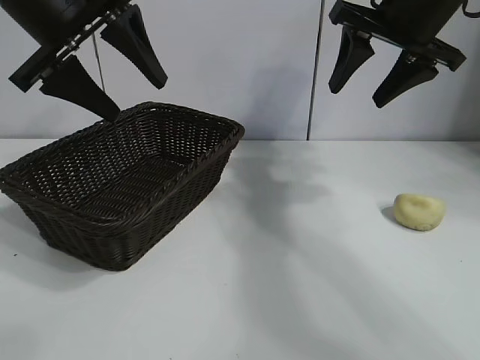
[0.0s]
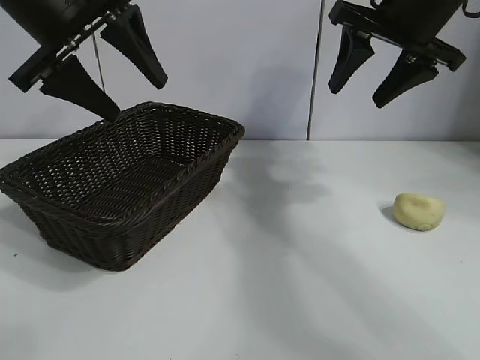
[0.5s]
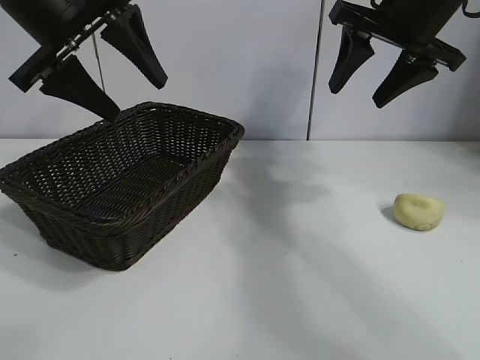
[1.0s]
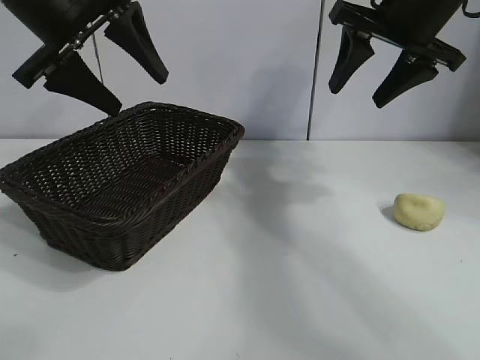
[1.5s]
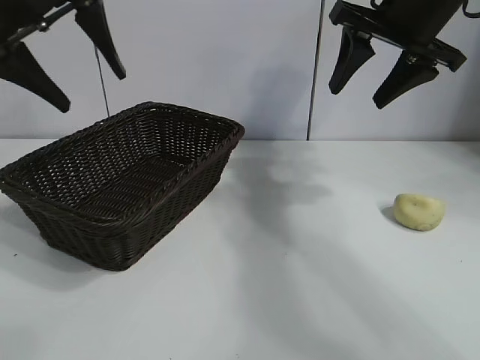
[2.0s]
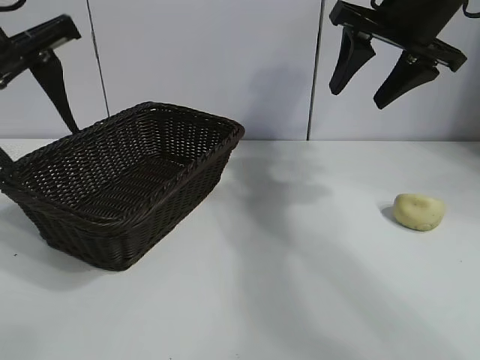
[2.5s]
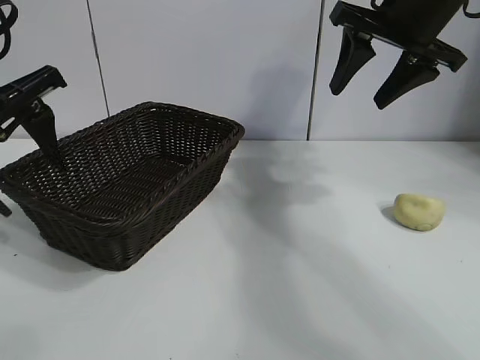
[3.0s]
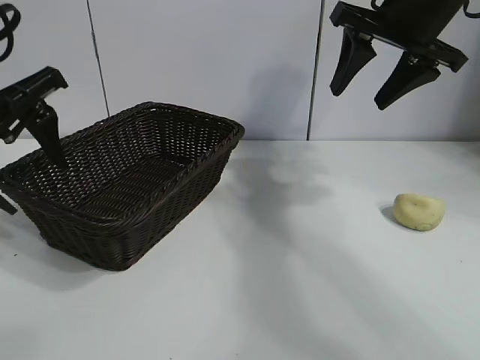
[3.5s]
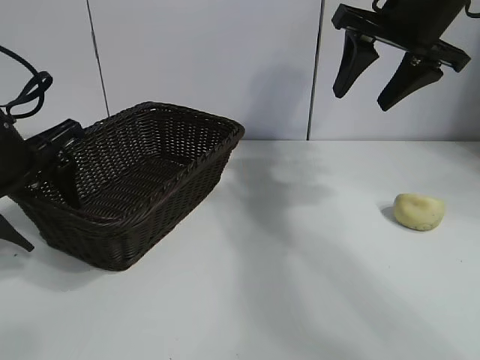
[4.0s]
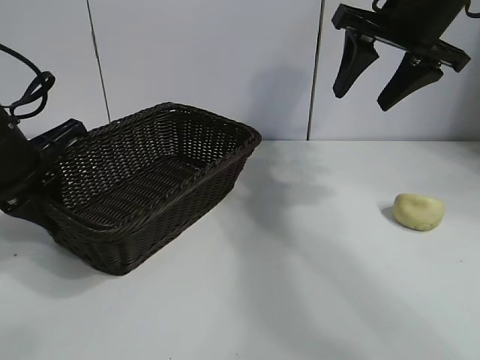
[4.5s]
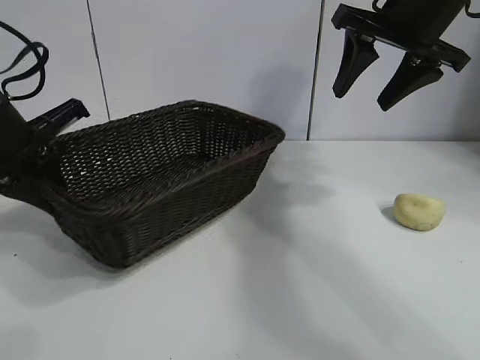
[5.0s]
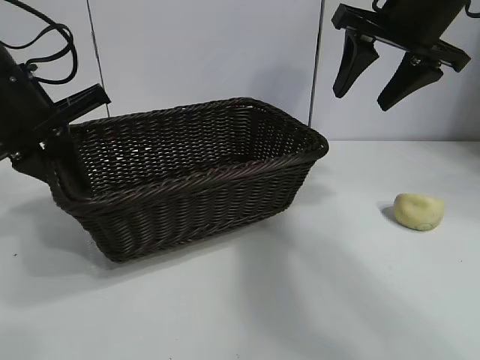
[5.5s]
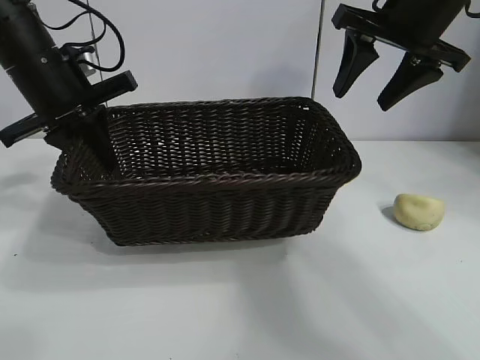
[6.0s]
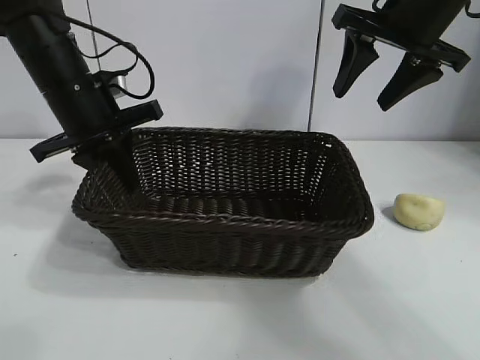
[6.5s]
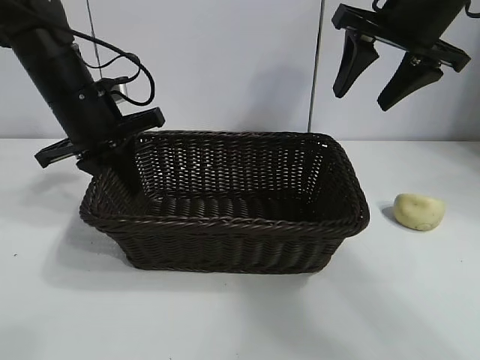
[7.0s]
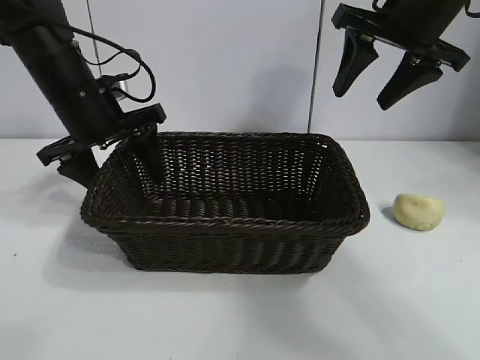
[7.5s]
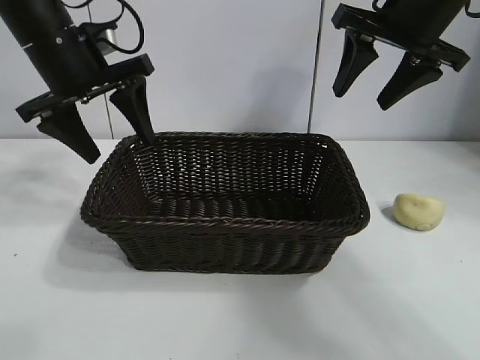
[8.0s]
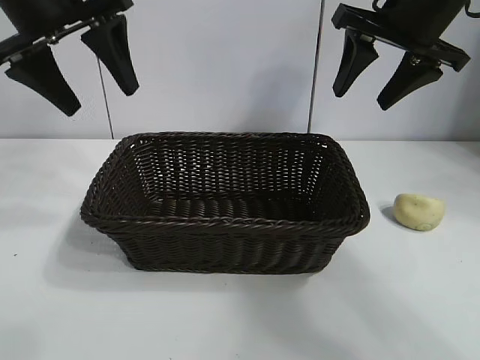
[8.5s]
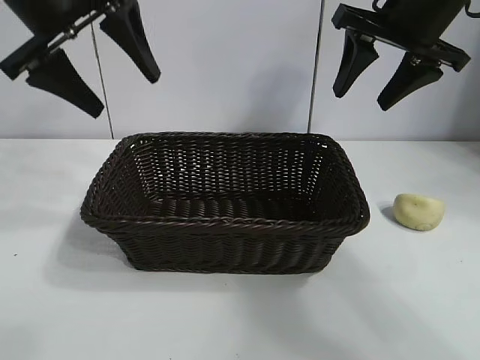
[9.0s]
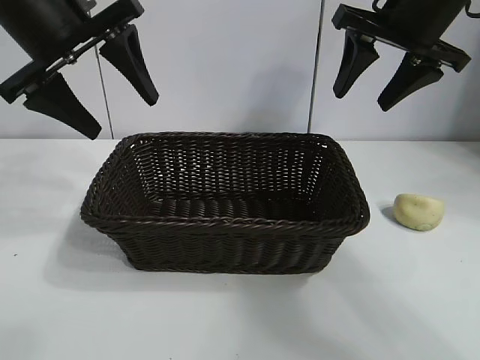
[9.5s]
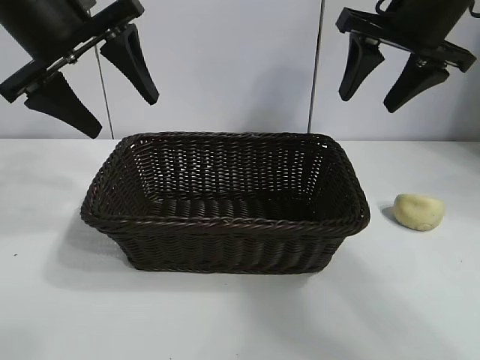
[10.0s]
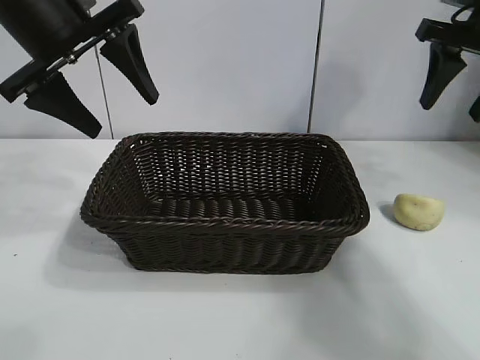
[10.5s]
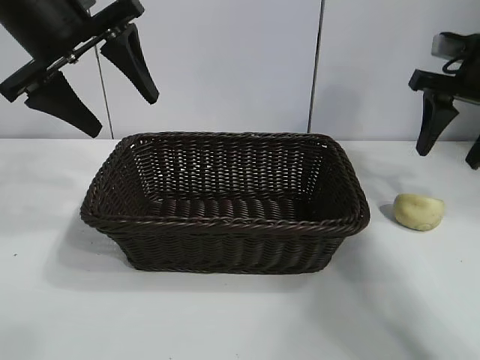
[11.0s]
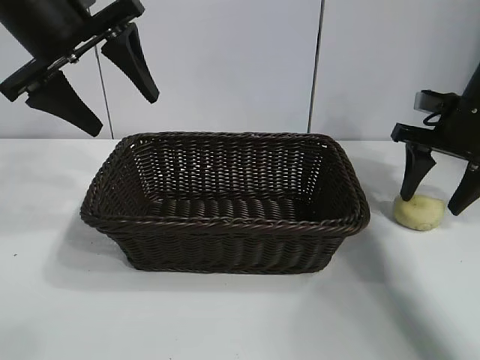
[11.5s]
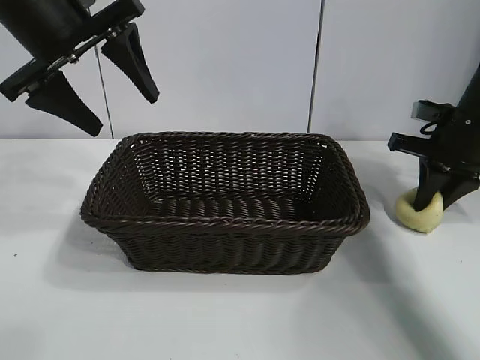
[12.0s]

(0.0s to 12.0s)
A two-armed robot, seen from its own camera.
Task of the whole recording: pick up the egg yolk pastry and put it into the basket.
Step, 1.5s - 4.0s: Grasp the basket with left gripper.
Step, 4.5s - 7.0s: Place the basket in the center of view with left gripper.

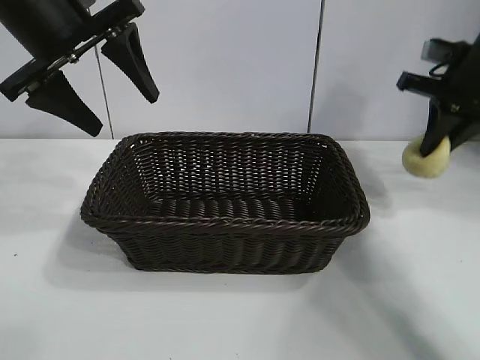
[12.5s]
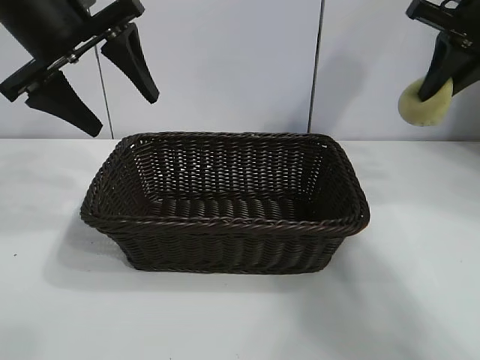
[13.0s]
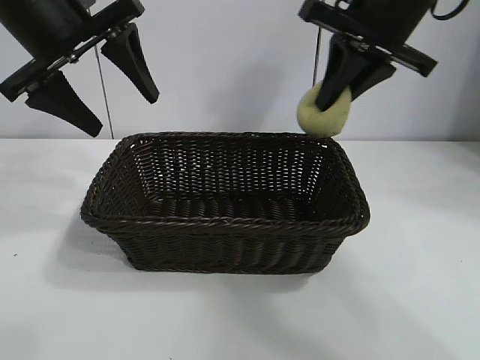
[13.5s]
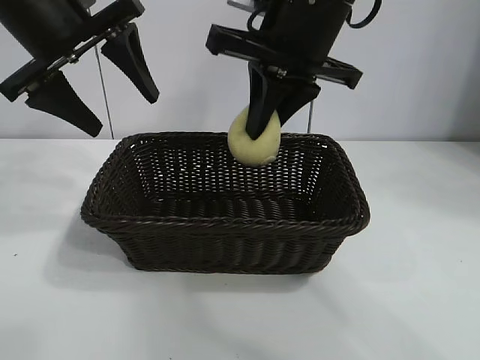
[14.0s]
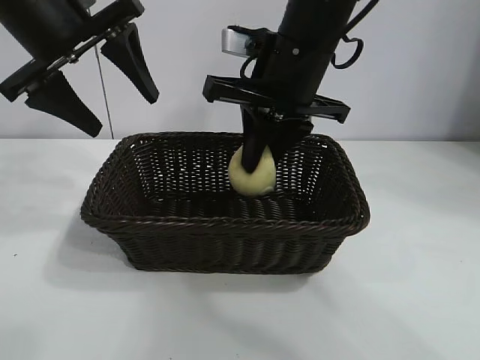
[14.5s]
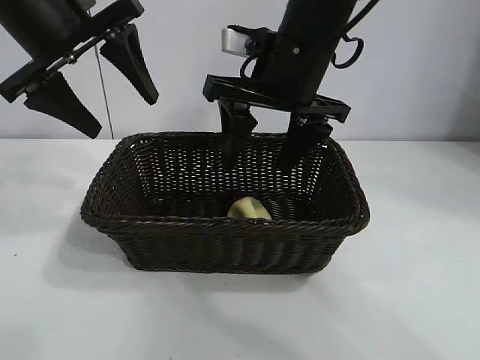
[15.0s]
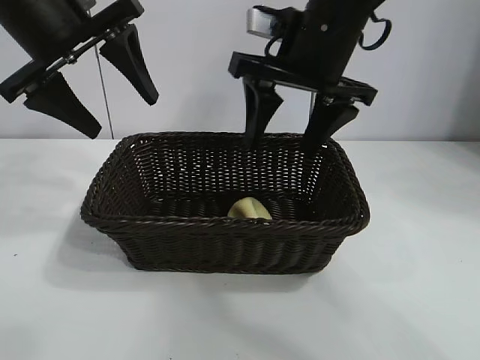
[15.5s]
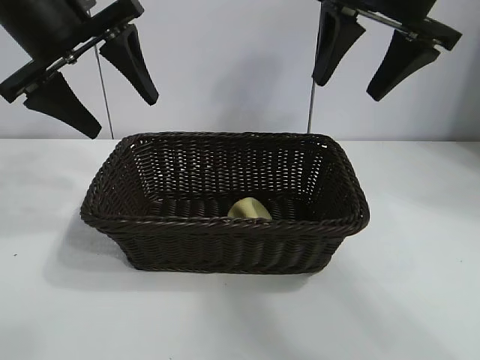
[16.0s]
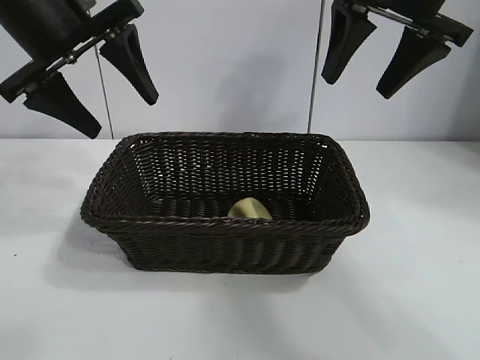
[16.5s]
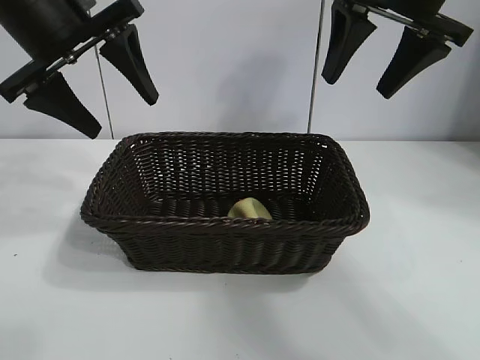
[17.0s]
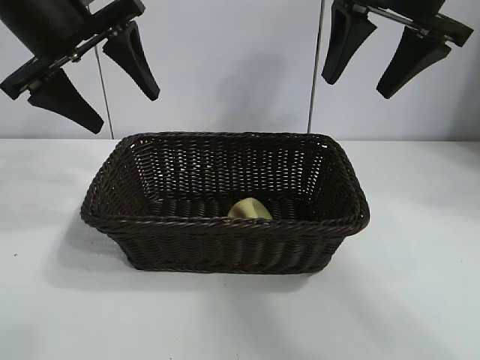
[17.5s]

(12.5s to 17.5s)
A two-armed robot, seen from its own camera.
Task of the whole recording: pick up the egg yolk pastry and put it into the basket.
Step, 12.5s - 14.5s: Place the egg yolk pastry in the basket with right gripper.
